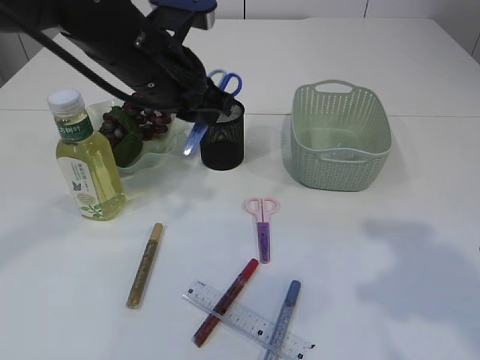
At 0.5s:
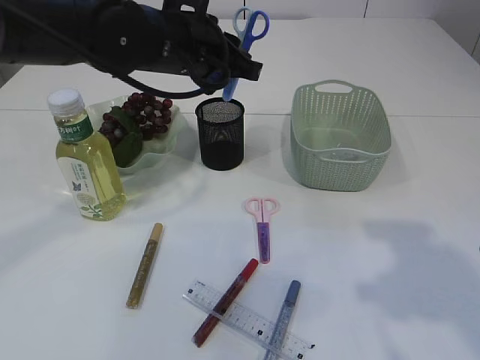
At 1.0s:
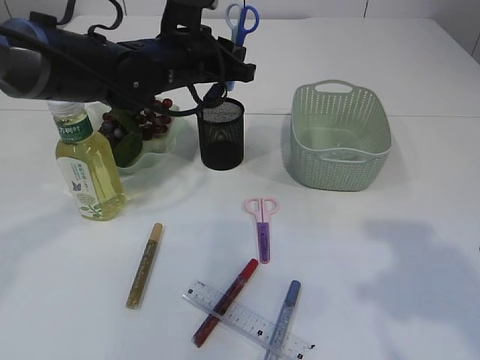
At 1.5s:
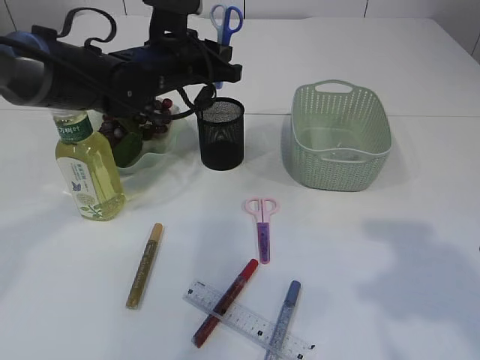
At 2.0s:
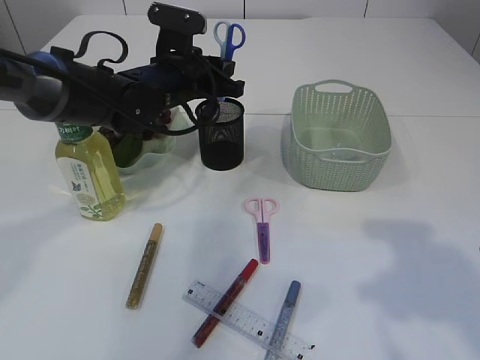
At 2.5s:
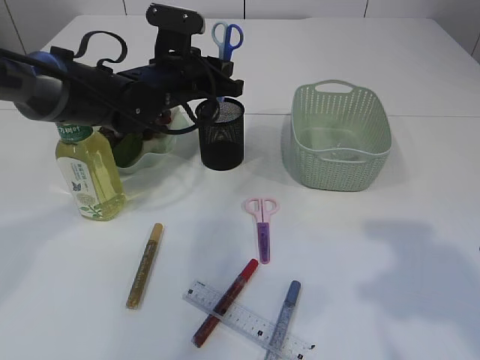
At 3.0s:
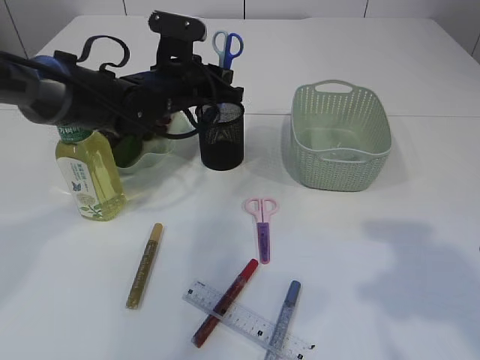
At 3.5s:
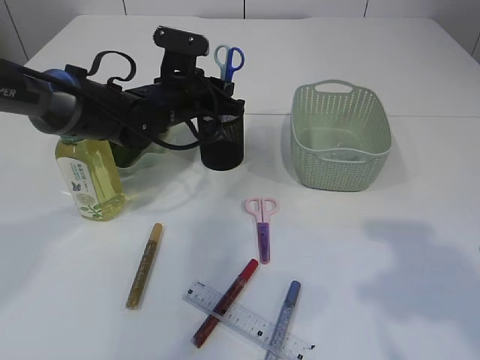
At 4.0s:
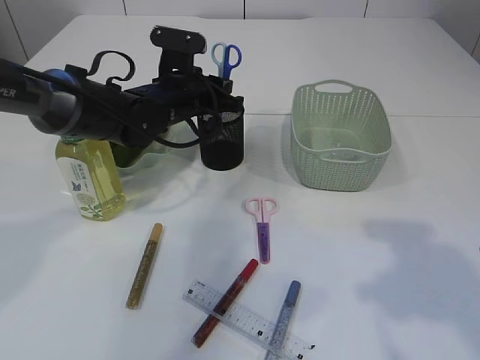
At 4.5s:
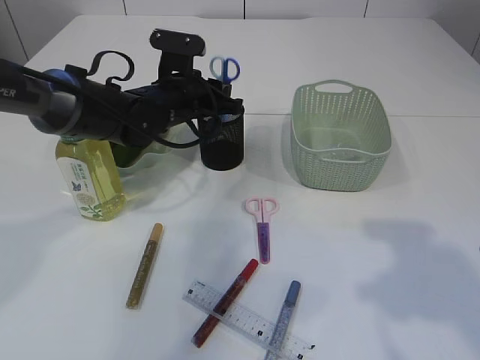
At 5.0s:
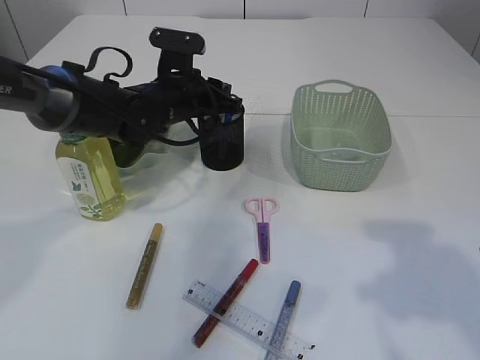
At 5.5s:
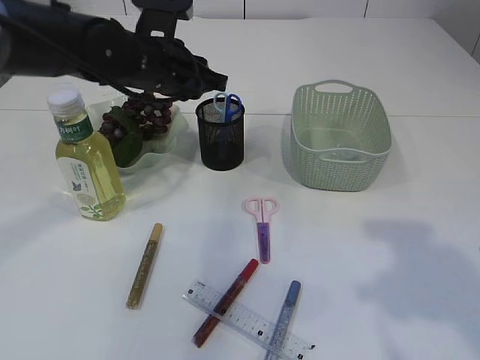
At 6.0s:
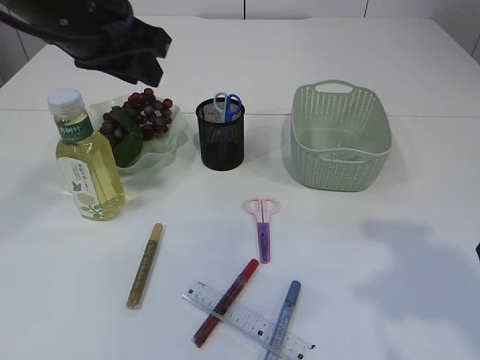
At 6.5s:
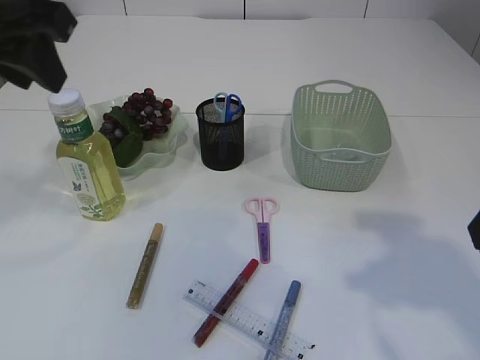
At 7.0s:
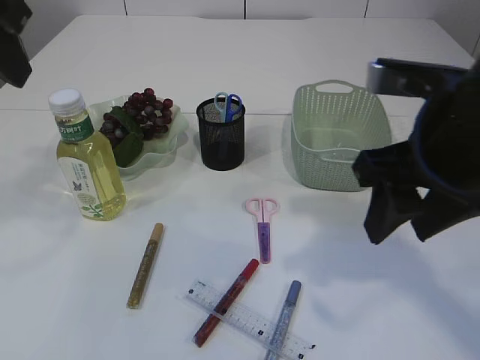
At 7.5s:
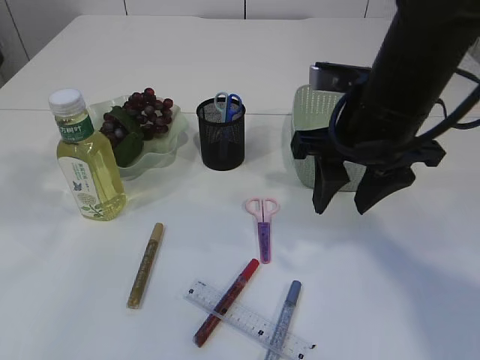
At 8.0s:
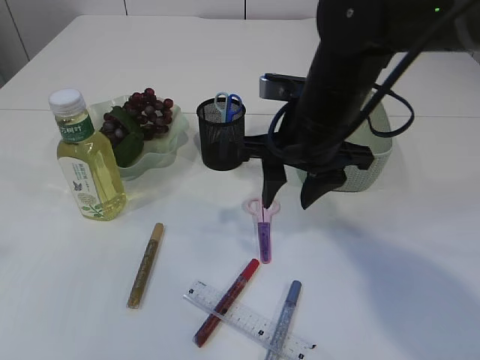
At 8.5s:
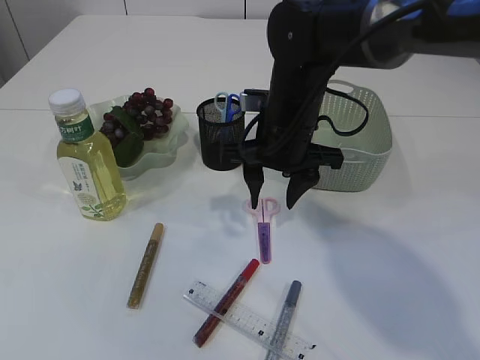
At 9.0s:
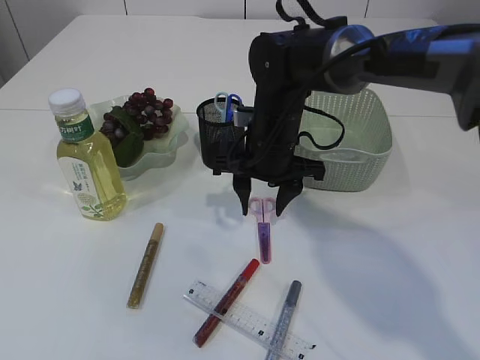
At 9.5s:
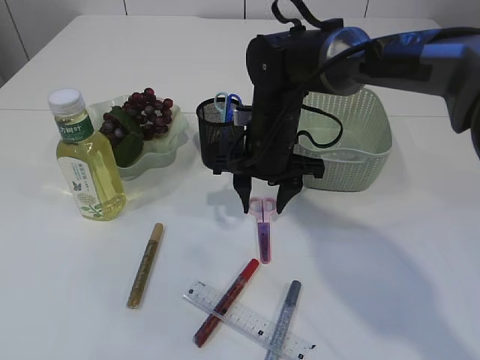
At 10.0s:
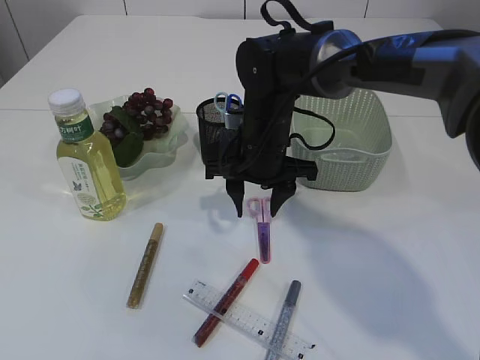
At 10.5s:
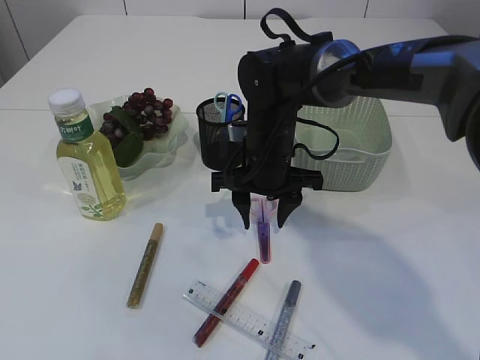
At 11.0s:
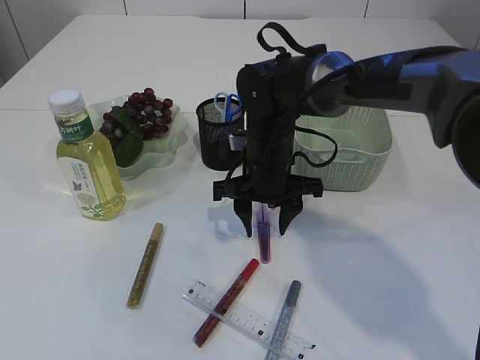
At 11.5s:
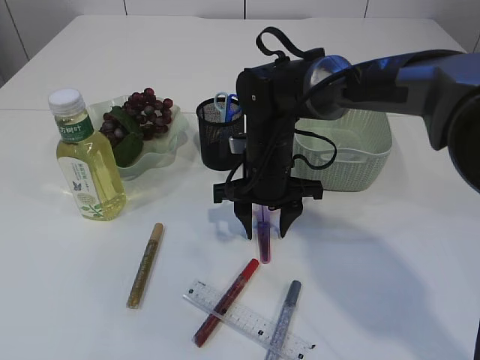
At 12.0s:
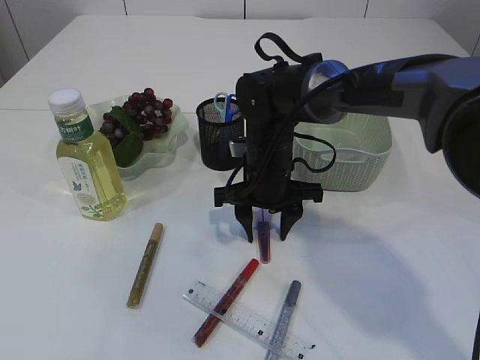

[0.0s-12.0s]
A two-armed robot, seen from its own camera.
Step, 0.0s to 5.5s: Place the blue scissors into the pen holder.
0.0s to 2.0s: The left gripper heads forward and downward, covering some 10 cm.
2.0s to 4.0s: There are only small adjustments of the grippers.
4.0s to 6.0s: The left gripper is displaced upward and backward by approximately 20 cm.
6.0s to 8.0s: The right gripper heads forward, to the left and downward, covering some 25 cm; the left gripper shifts some 25 cm backward, to the left and upward.
8.0s to 10.0s: The right gripper shifts about 10 cm downward and forward.
10.0s to 12.0s: The grippers stay close to where they were, moving slightly.

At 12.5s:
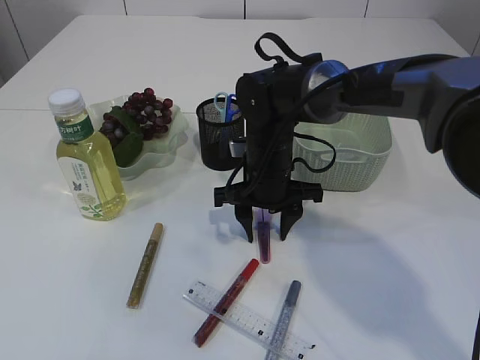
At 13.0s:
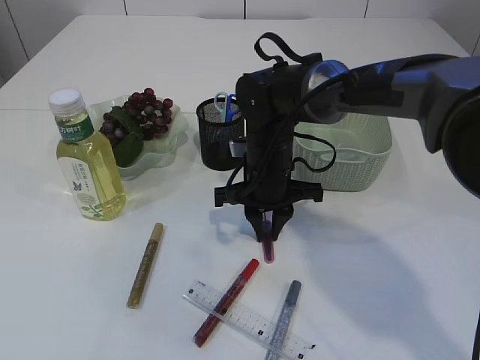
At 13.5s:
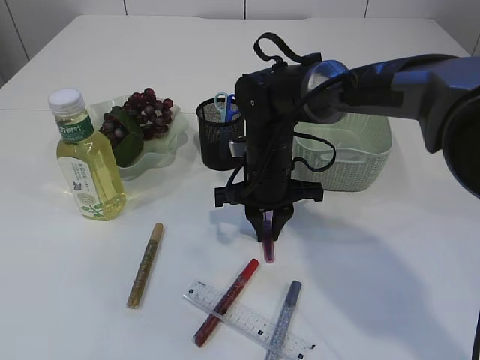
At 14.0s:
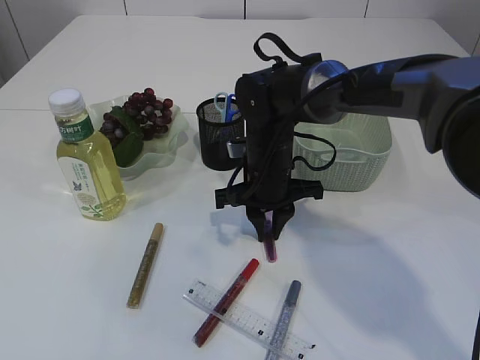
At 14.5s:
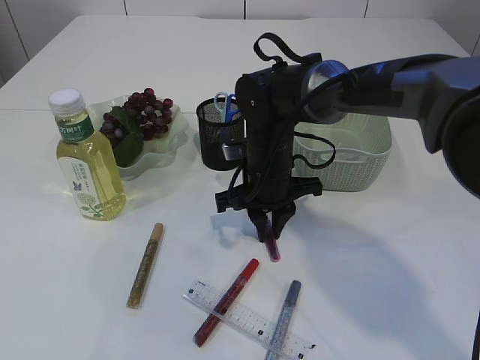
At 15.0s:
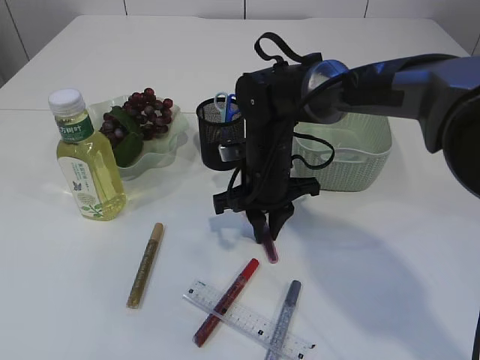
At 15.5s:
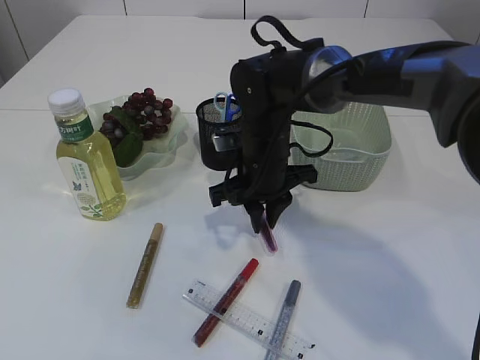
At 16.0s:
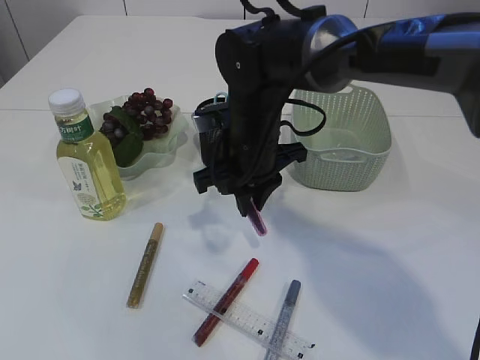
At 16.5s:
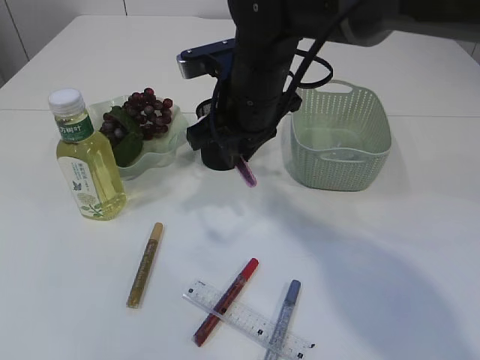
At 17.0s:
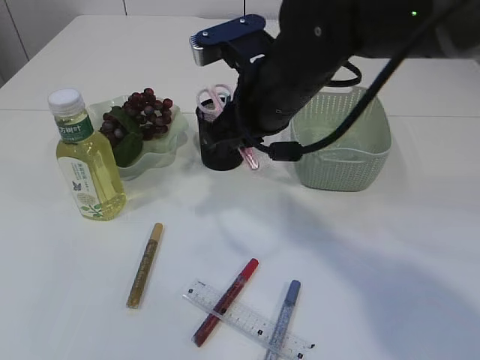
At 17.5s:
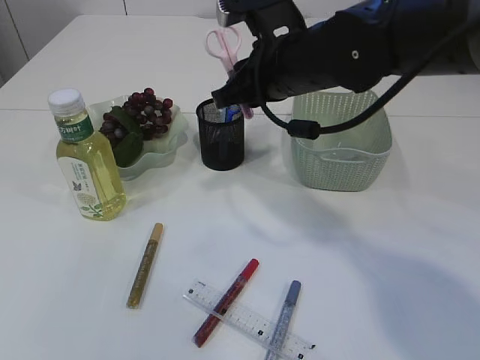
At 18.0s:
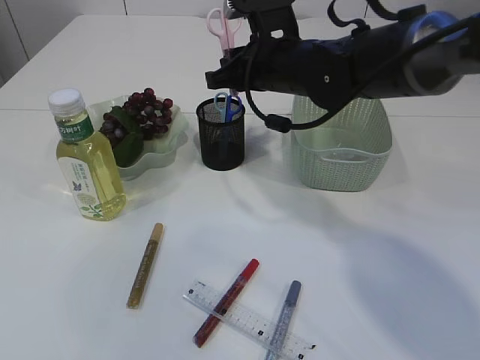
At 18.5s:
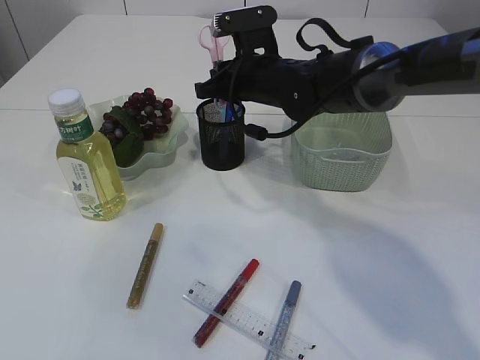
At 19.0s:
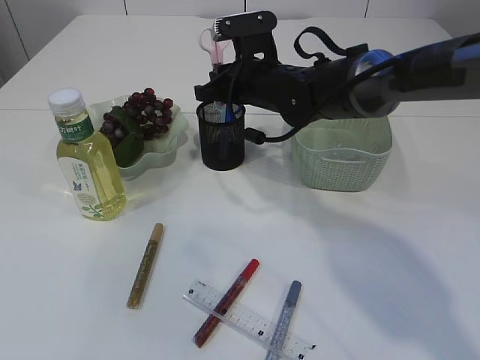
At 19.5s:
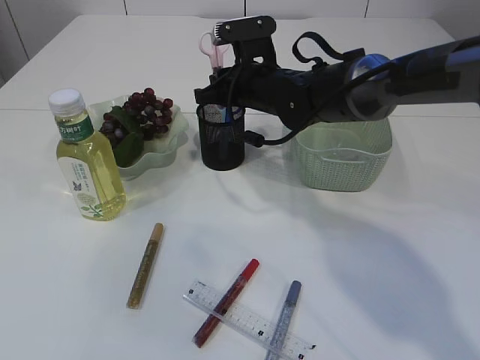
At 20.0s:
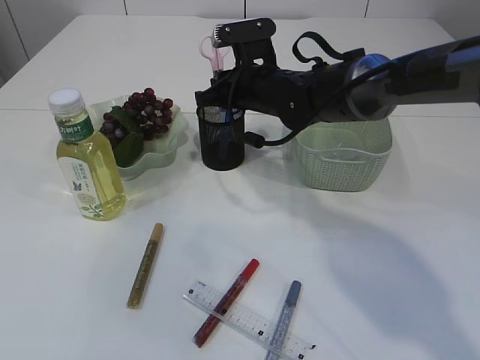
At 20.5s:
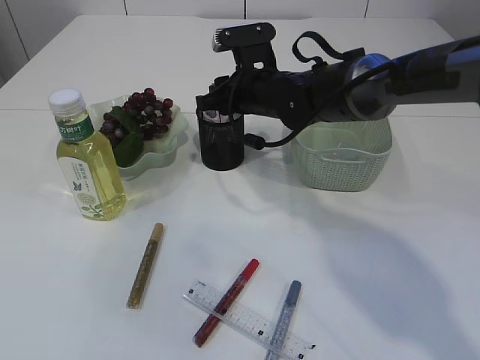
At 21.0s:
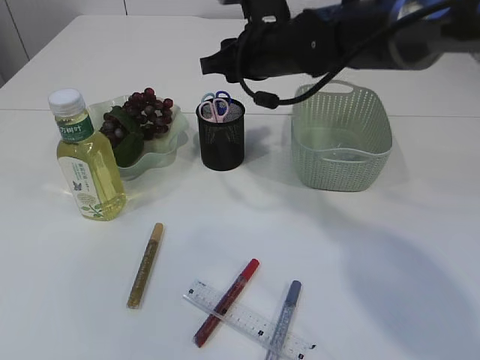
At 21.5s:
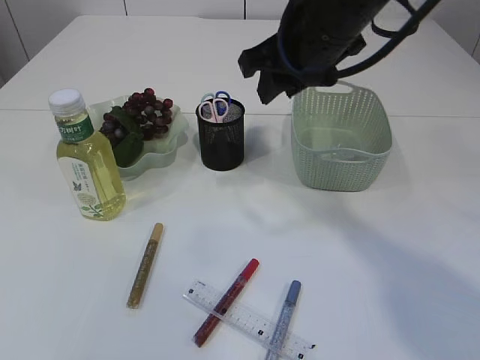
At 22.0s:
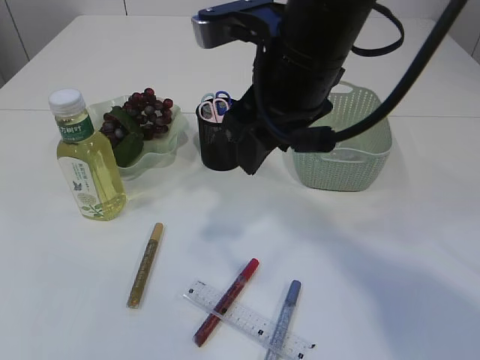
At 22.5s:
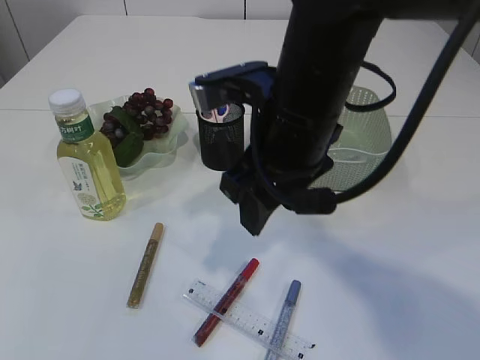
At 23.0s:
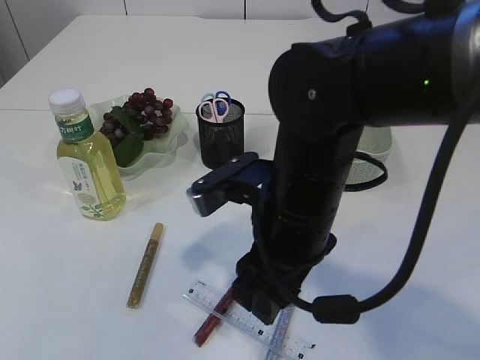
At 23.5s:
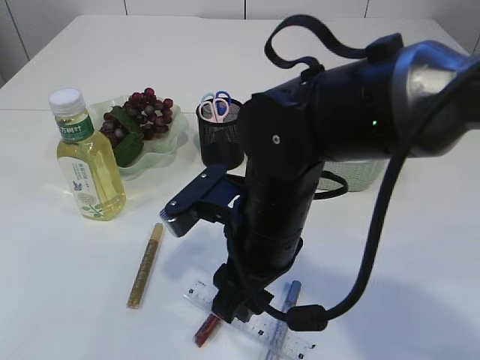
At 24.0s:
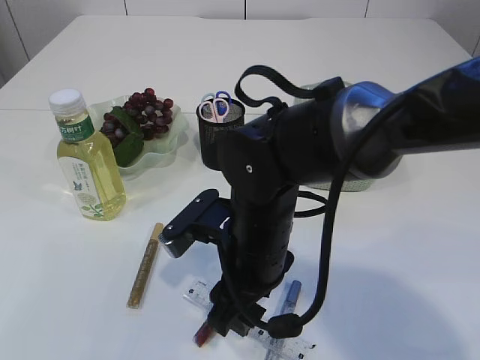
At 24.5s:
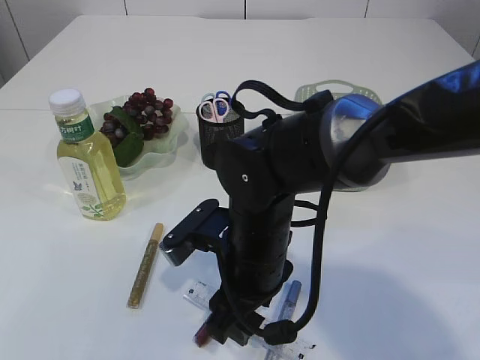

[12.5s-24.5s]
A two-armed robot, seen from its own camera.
Step, 12.5s to 16.0s: pick up the pink scissors.
Step, 16.5s to 21.0s: Place the pink scissors into the pen holder.
12.5s to 14.5s: The right gripper closes its fingers.
14.5s to 16.5s: The right gripper moves upward, approximately 10 cm.
16.5s to 18.5s: The right gripper is displaced forward by about 10 cm.
18.5s to 20.5s: The grippers make only small movements.
20.5s to 22.5s: The right gripper moves backward and upward, about 20 cm.
22.5s to 24.5s: The right gripper shifts some 15 cm downward.

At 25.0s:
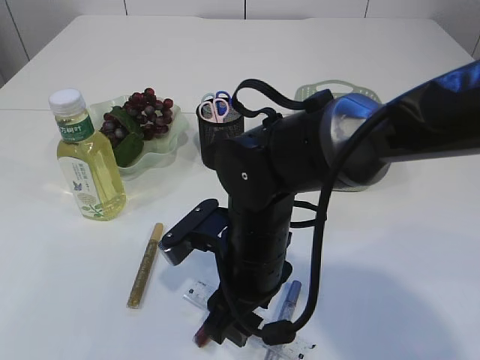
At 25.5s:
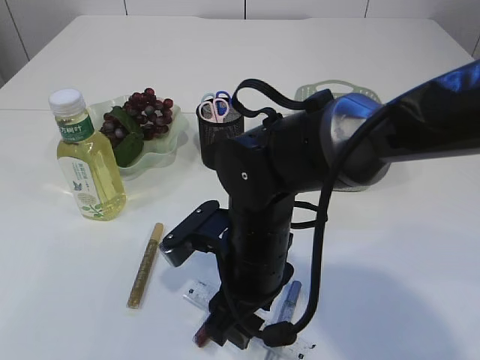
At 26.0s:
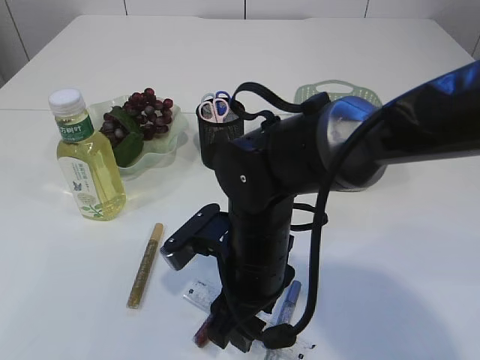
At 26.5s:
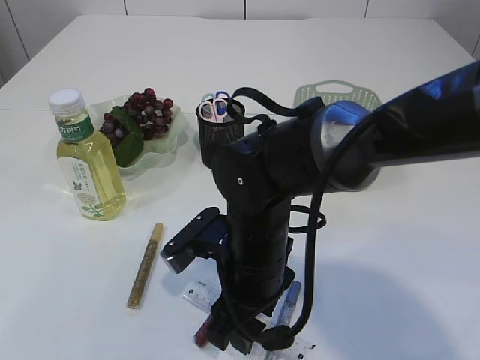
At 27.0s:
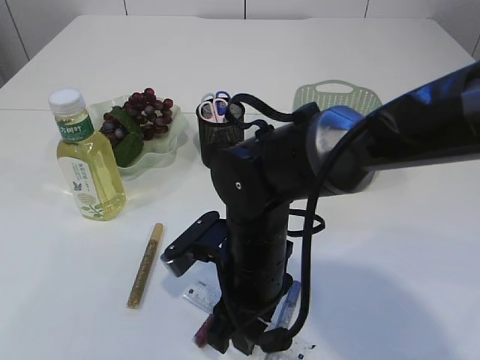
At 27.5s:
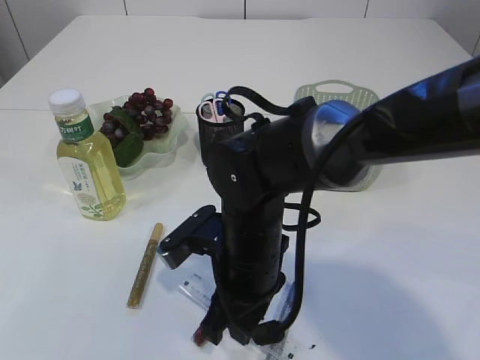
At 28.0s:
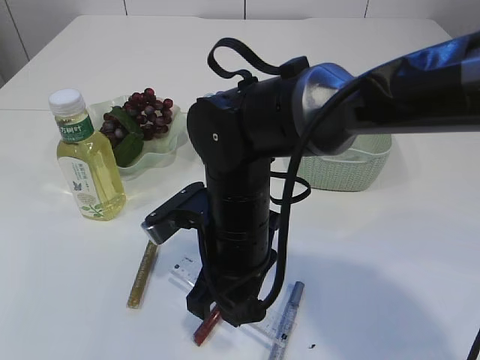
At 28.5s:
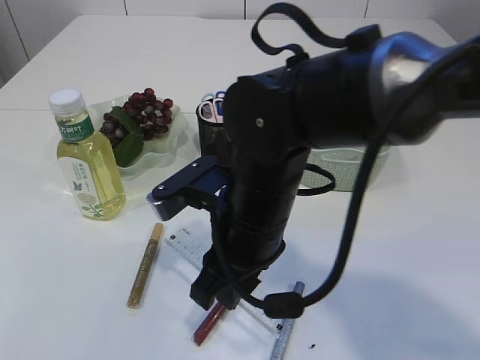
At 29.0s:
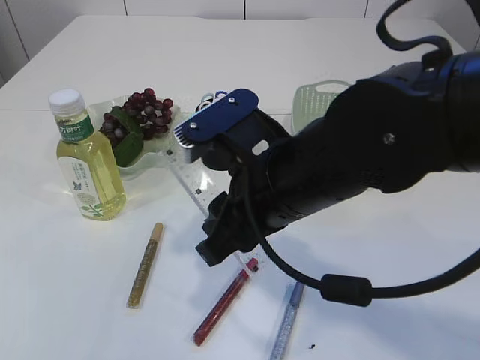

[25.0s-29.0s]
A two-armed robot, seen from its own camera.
Step, 25.0s to 28.5s: pick up the ruler.
25.0s to 27.0s: The two grippers keep their place.
27.0s to 29.0s: The right gripper is displaced upward by about 10 cm.
